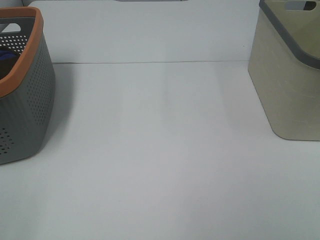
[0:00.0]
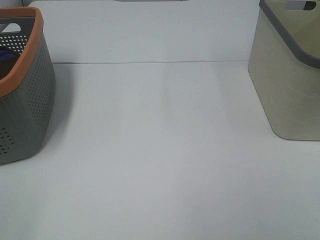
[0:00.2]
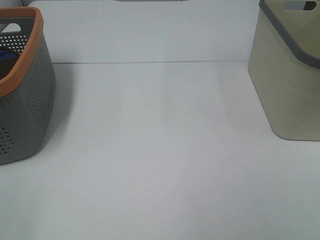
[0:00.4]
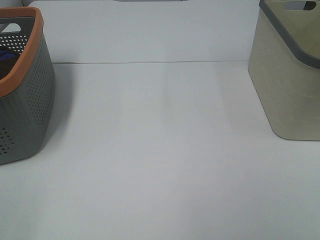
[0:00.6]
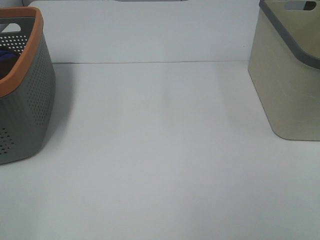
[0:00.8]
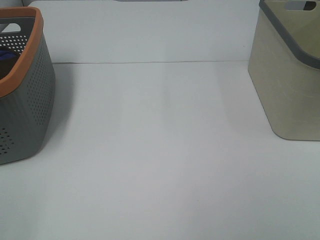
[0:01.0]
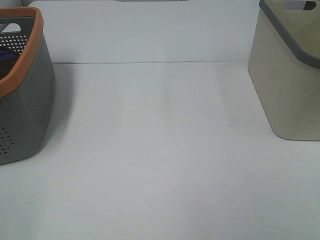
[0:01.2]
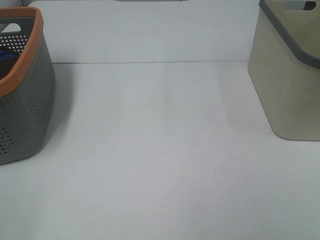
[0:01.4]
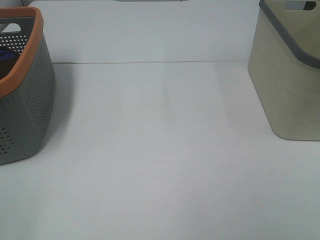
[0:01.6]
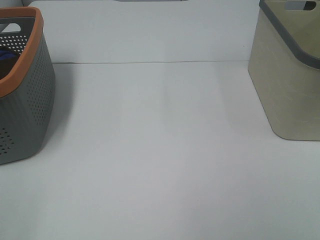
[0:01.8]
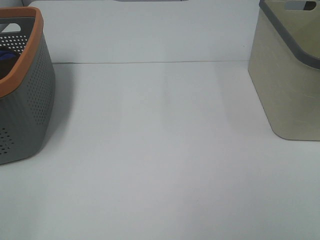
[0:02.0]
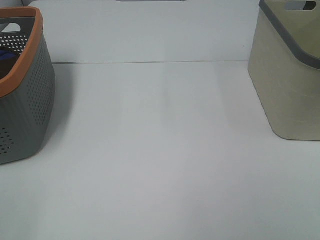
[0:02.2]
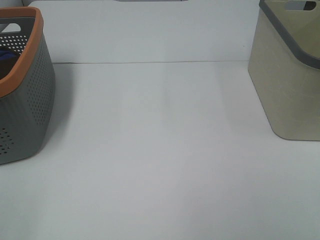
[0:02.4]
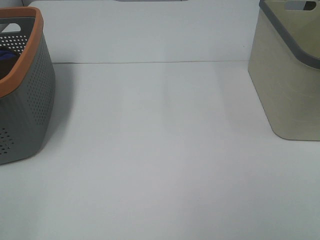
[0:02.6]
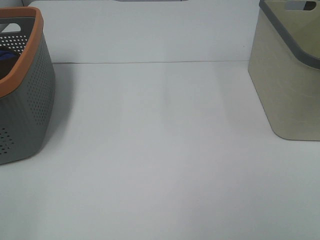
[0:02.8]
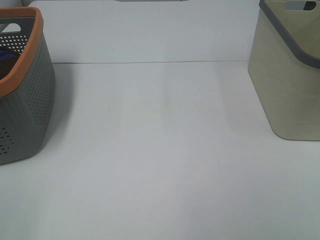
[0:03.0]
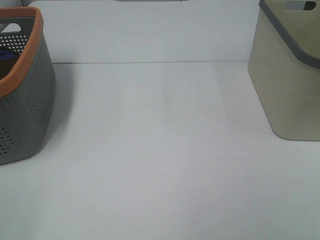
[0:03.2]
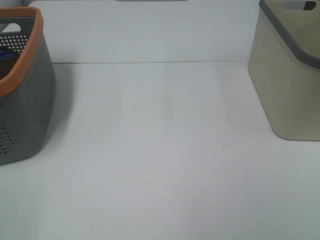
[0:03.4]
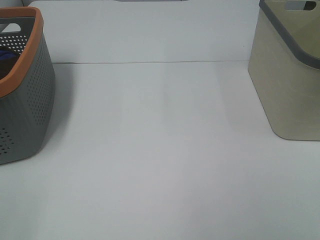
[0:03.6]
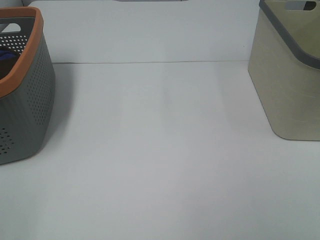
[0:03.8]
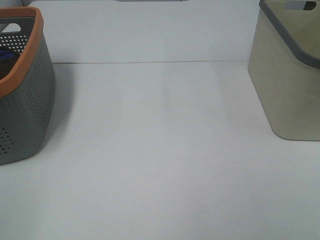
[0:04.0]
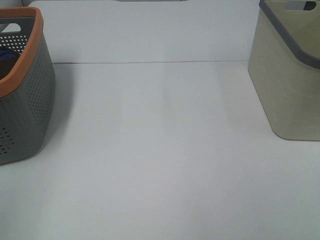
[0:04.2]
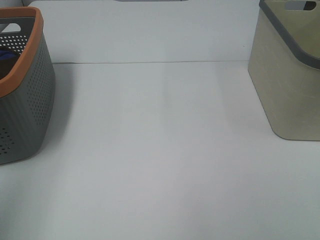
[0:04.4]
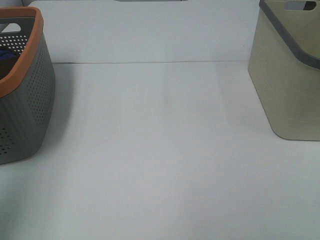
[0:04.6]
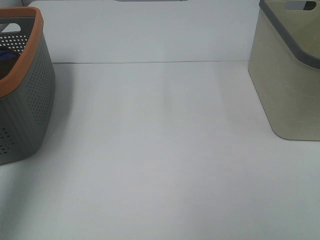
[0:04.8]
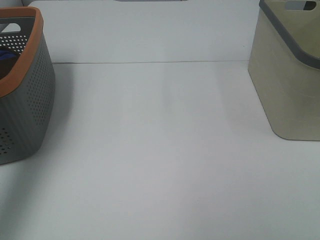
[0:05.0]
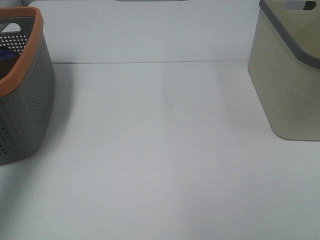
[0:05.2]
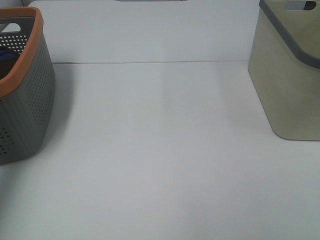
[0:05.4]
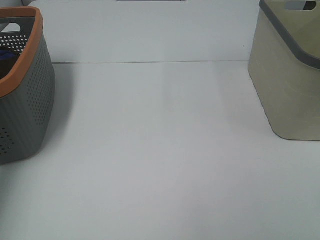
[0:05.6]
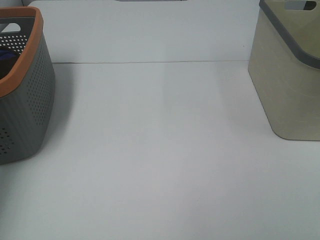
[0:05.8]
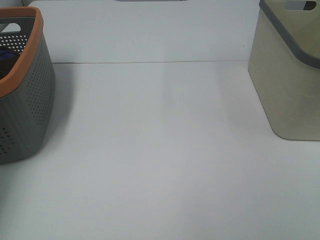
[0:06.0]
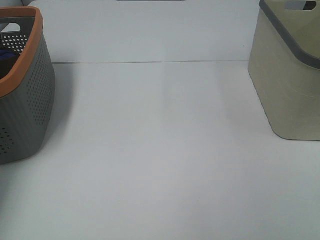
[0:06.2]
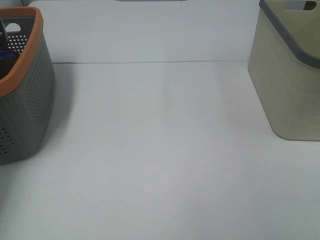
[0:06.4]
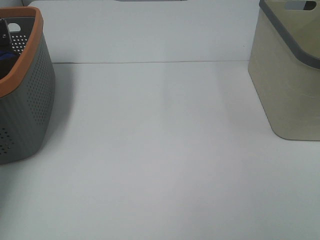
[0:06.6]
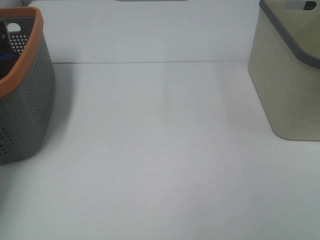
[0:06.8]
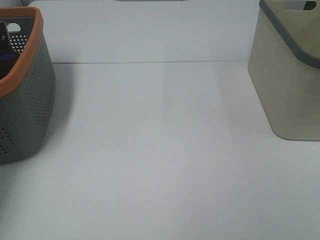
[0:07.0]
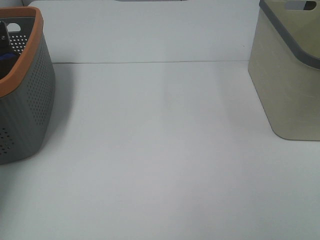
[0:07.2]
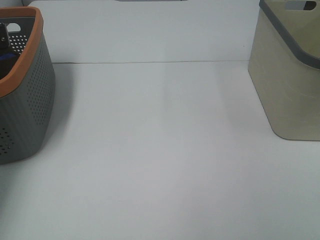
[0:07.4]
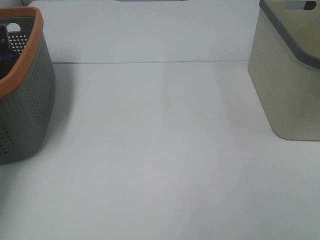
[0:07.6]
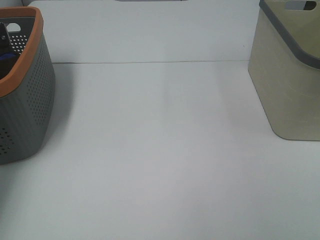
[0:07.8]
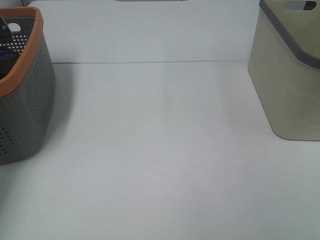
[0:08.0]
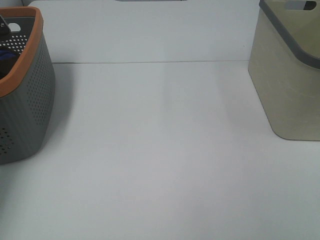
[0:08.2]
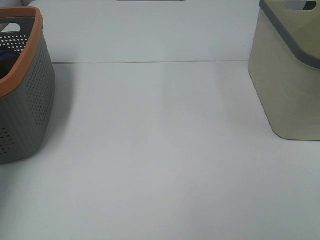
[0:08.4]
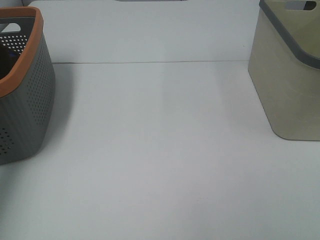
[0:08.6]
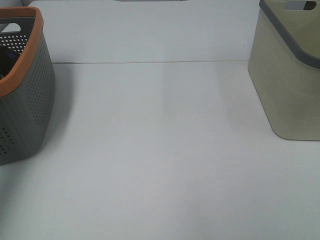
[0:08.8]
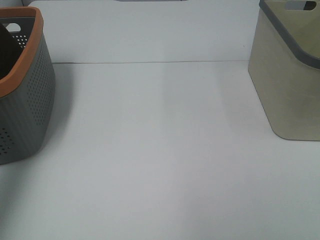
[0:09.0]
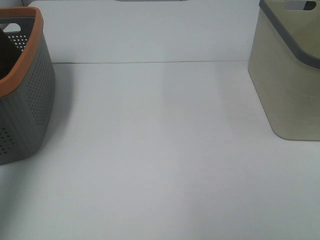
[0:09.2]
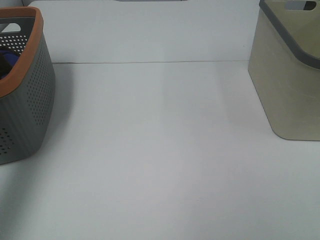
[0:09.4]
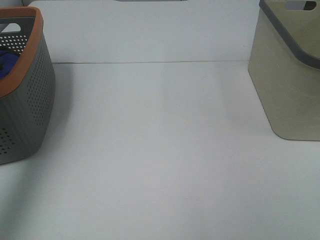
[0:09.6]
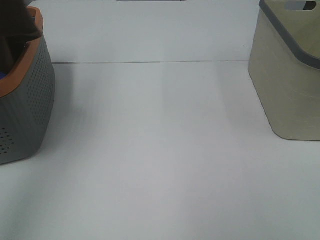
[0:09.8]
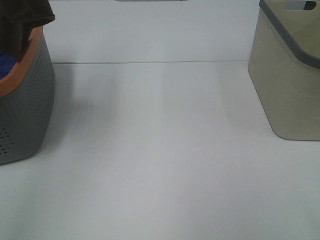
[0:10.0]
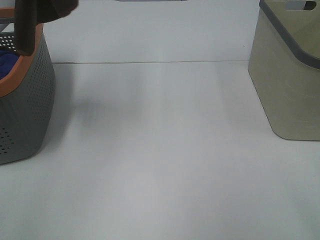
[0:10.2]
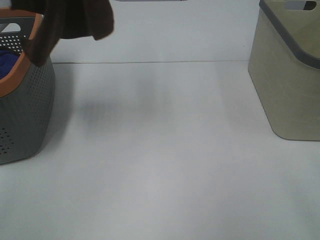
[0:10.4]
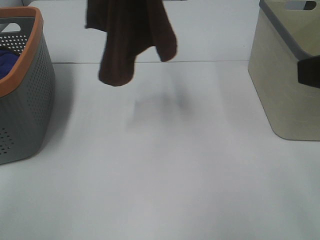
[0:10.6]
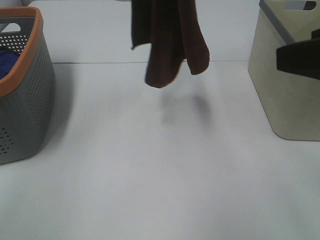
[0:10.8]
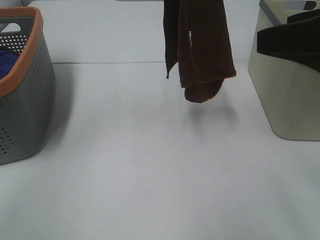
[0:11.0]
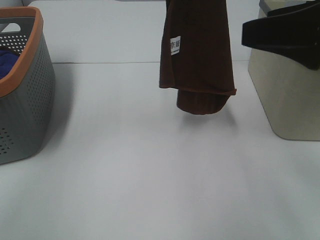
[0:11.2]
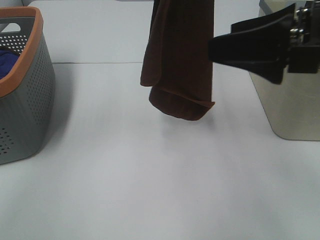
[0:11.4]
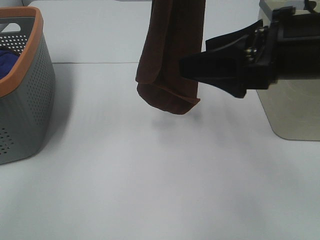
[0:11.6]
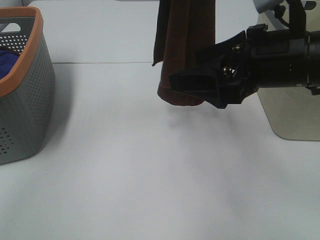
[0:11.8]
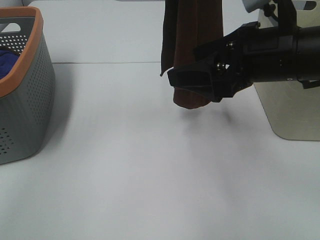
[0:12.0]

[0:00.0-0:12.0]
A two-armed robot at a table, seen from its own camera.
Task of the whole recording: Remove the towel and place it.
0:00.0 to 0:03.0: Neither gripper changes place.
0:03.0 to 0:04.4: The left gripper shifts some 15 cm upward and forward.
0:07.6 to 0:09.0: The left gripper shifts approximately 30 cm upward and backward.
0:09.0 to 0:10.4: The left gripper moves to the right and upward, some 20 cm. Meanwhile the right gripper travels forward and upward by about 15 cm.
0:10.4 to 0:12.0: The right gripper moves forward, downward and to the left, about 20 cm. Meanwhile the left gripper goes about 15 cm to the right and downward.

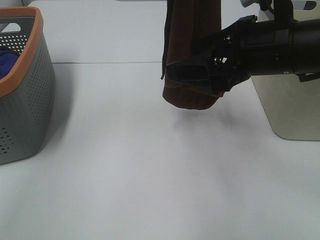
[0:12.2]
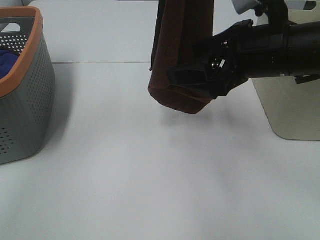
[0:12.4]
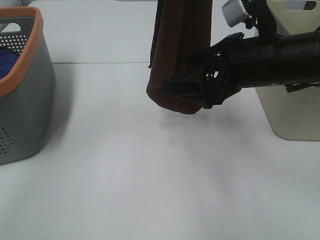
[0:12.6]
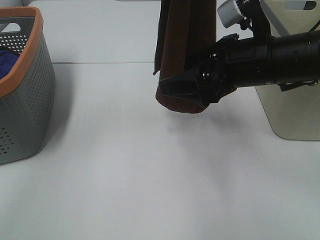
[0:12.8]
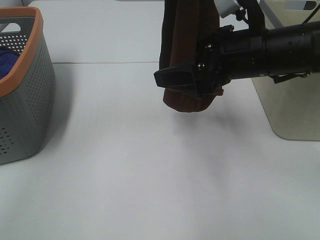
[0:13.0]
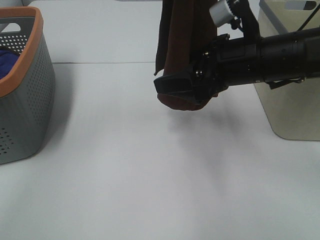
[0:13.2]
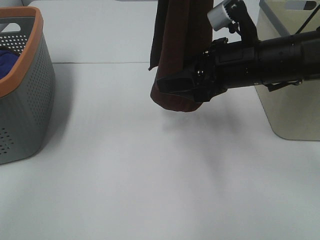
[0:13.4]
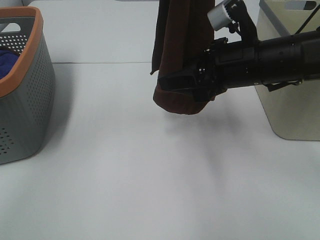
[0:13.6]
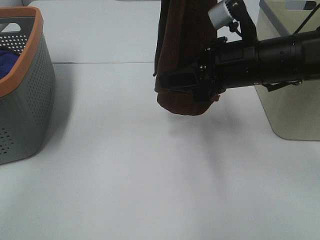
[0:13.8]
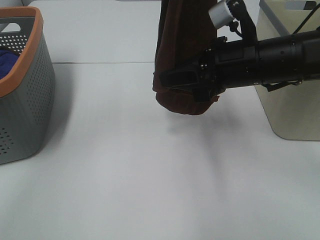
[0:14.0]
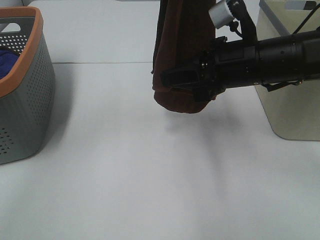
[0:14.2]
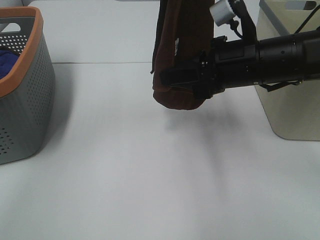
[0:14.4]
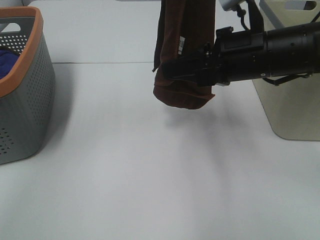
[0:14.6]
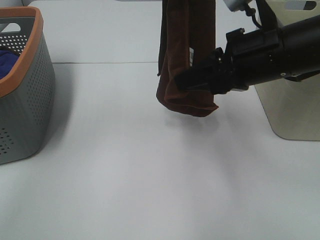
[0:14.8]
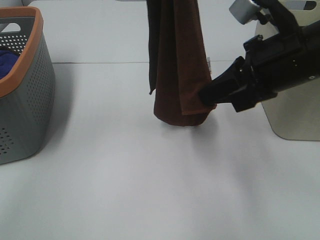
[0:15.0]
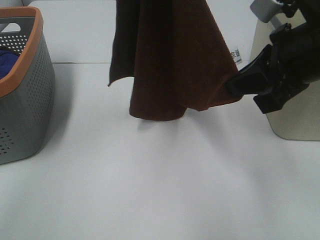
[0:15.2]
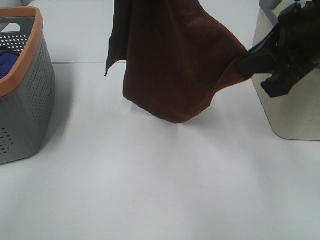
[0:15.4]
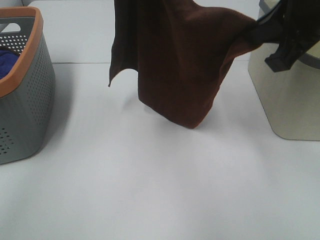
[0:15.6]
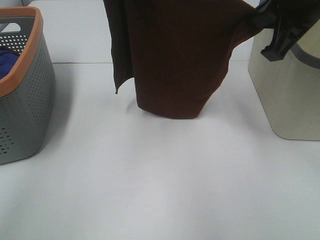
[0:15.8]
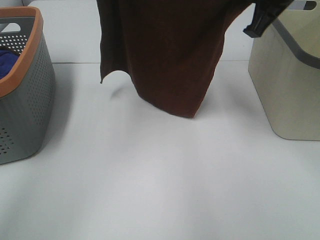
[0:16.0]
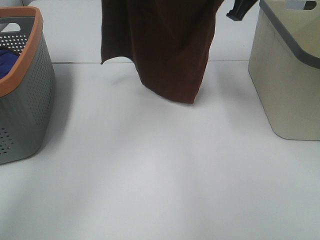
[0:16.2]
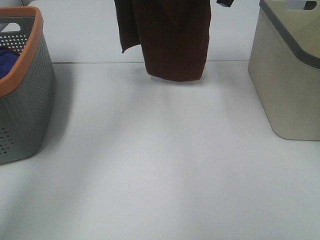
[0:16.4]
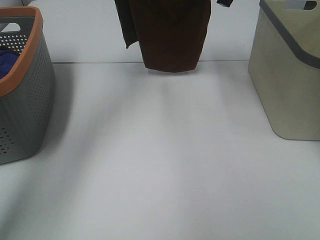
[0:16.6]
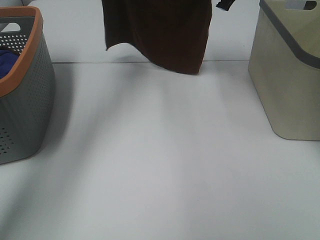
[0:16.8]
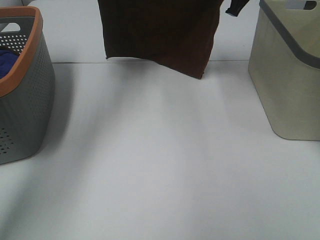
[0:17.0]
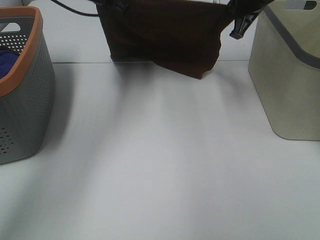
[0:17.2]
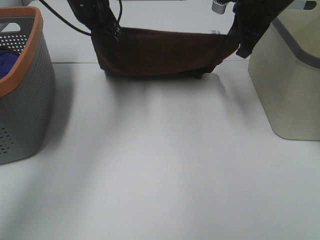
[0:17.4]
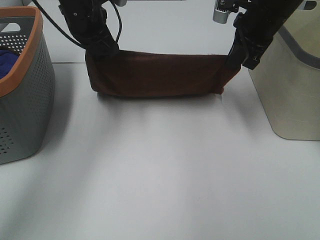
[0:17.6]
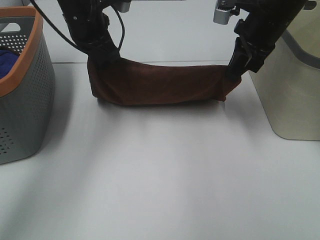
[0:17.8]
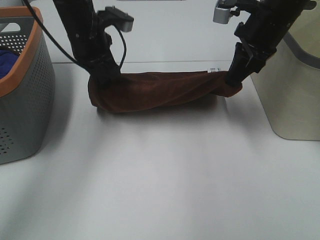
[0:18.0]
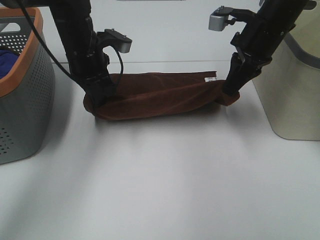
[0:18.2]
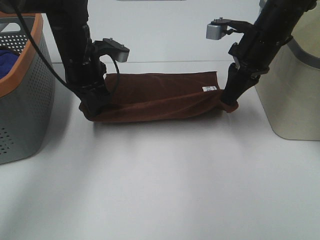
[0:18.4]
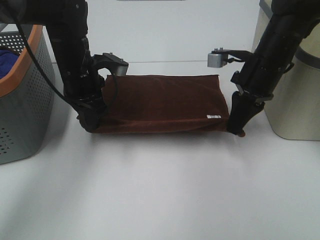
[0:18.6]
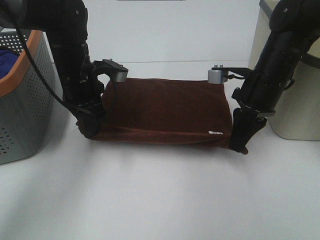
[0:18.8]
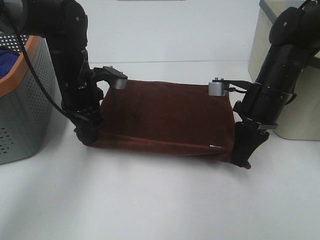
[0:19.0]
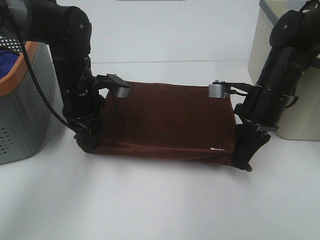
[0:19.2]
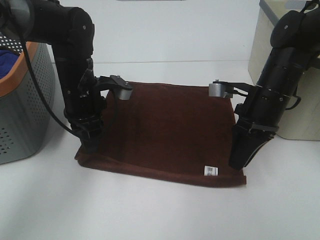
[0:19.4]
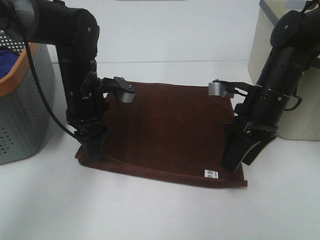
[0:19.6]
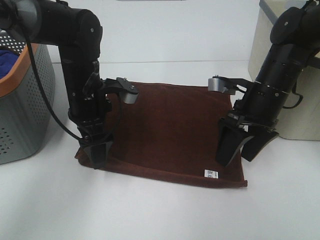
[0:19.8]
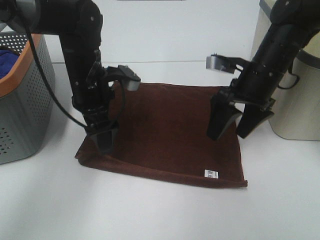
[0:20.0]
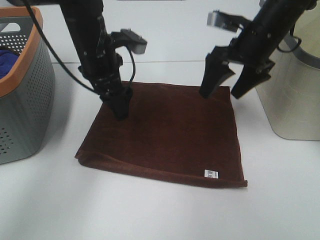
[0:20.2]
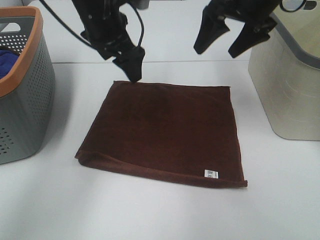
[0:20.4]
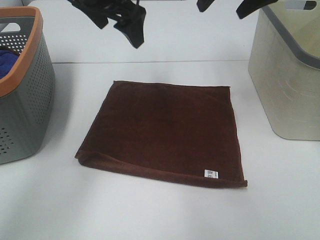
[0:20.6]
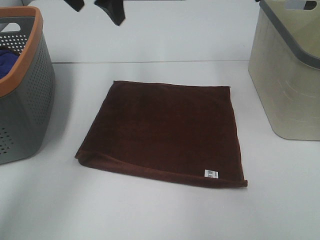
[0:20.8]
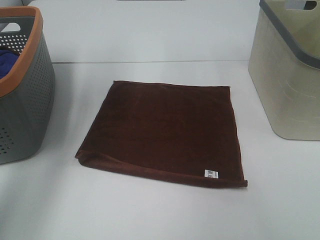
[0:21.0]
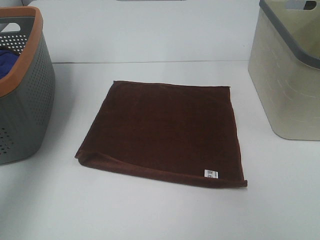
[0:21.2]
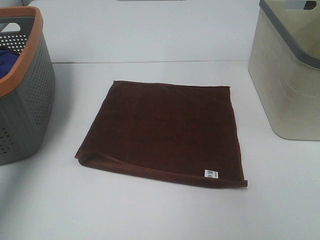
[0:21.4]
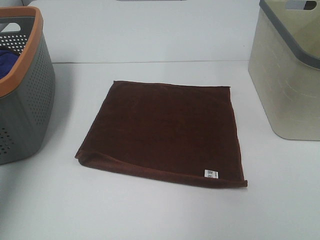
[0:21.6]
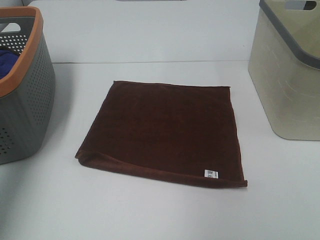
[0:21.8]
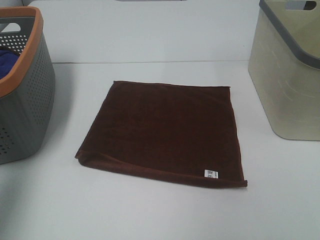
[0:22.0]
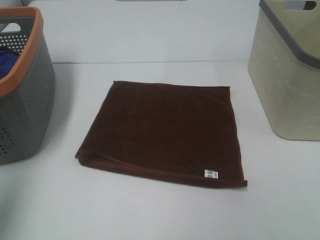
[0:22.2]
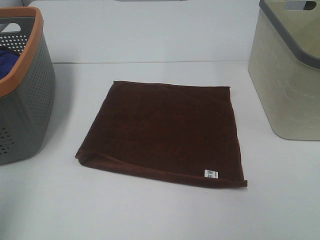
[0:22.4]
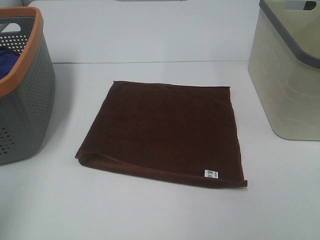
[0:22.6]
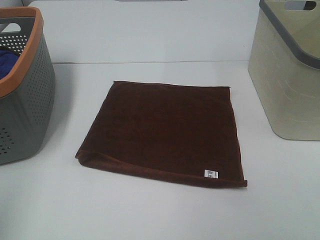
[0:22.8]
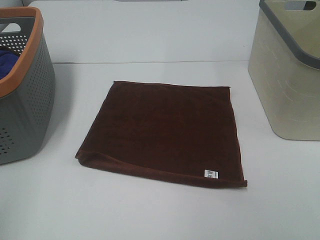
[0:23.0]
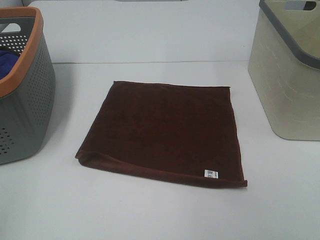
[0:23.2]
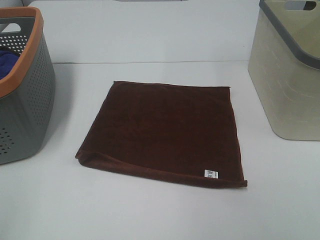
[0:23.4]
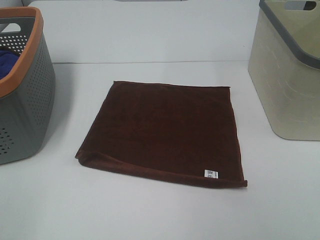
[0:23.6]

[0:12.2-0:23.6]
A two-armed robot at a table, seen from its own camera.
Task of the whole recording: Remove the towel and place it.
Step, 0:13.0 to 0:15.4: Left hand: spread the brown towel flat on the table.
Step, 0:13.0 to 0:15.4: Right hand: spread the brown towel flat on the table.
0:12.2 to 0:13.6: The right gripper changes place by about 5 cm, and closes up.
0:13.6 to 0:15.0: The right gripper is displaced upward by about 5 cm, and closes up.
0:15.0 to 0:16.4: The left gripper is displaced forward, downward and to the left by roughly 20 cm. The right gripper moves forward, approximately 20 cm.
0:16.4 to 0:17.8: The left gripper is displaced downward by some 15 cm; the right gripper heads downward, covering some 10 cm.
0:17.8 to 0:19.4: Both grippers travel together downward and backward, roughly 15 cm. The right gripper opens.
0:19.4 to 0:20.8: The right gripper shifts roughly 25 cm upward and forward, and opens up, while the left gripper moves upward, some 20 cm, and opens up.
0:20.8 to 0:22.2: The left gripper moves backward and to the left, approximately 35 cm.
0:22.2 to 0:23.6: The left gripper goes roughly 15 cm backward and downward.
